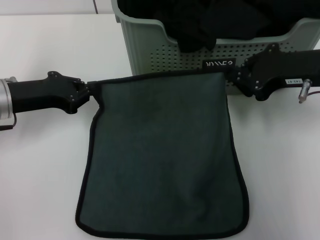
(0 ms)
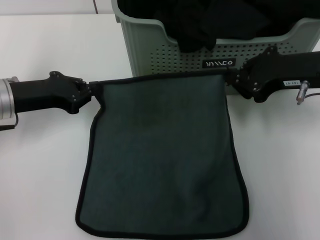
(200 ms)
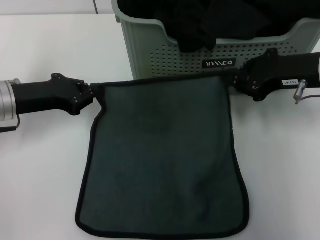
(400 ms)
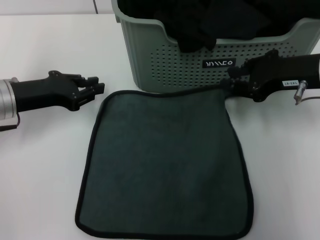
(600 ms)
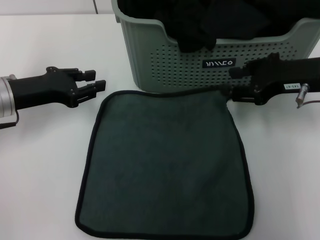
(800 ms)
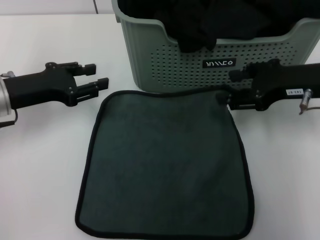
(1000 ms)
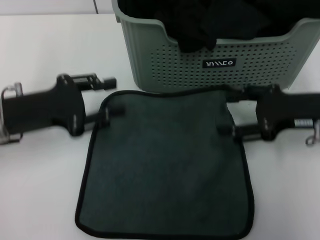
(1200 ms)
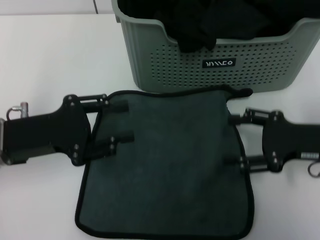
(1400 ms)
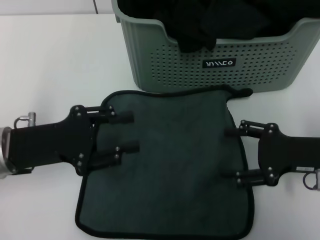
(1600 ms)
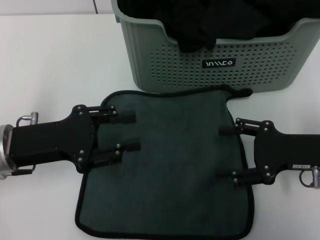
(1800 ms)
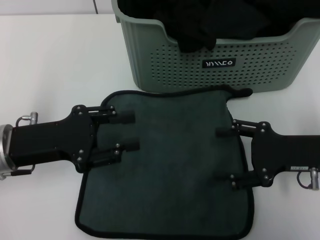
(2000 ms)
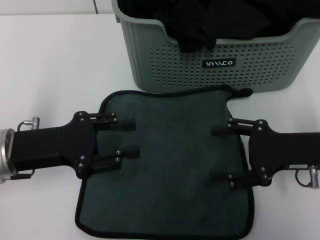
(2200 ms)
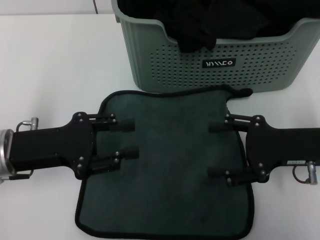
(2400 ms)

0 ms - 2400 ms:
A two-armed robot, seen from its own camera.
Task of the whole recording: pick up the towel from the storage box and lay it flat on the table.
0 ms - 1200 ms: The right gripper ends up about 5 cm from where it was, and opens up. Meanwhile the left gripper opens.
1200 ms - 2400 ms: The right gripper ends up roughly 5 cm from where it was.
